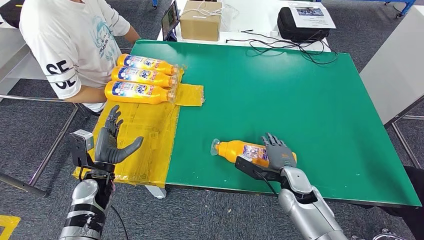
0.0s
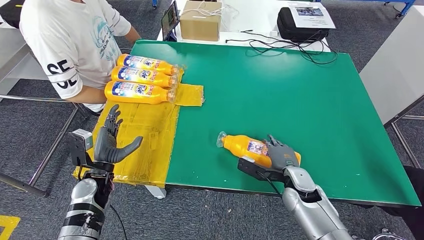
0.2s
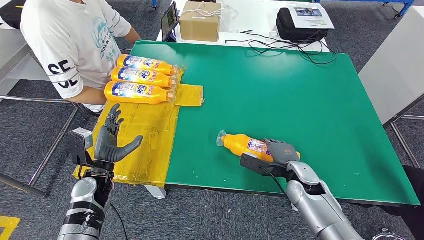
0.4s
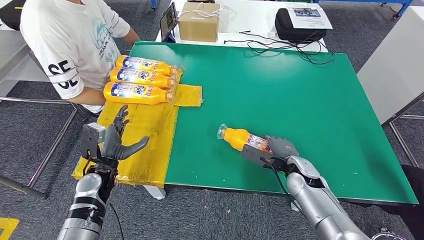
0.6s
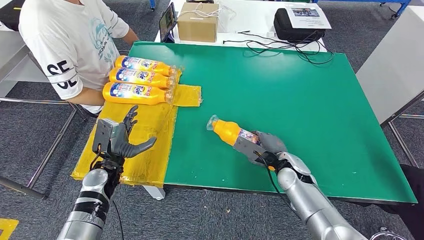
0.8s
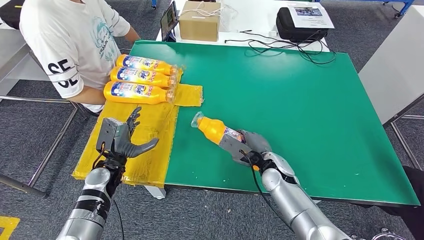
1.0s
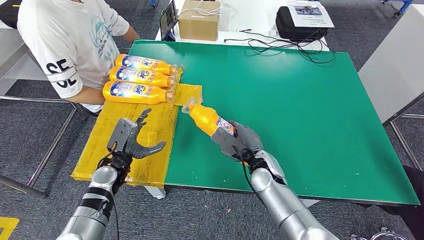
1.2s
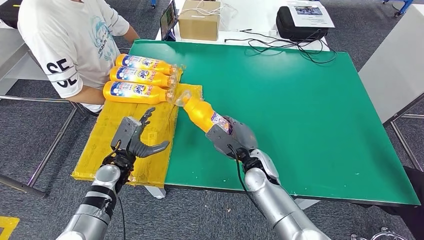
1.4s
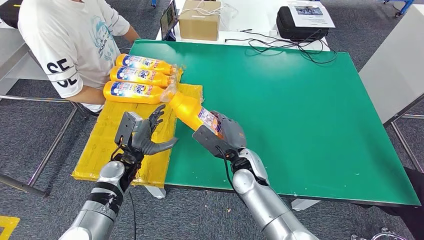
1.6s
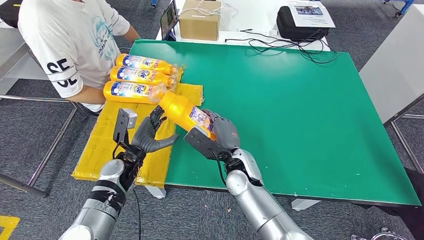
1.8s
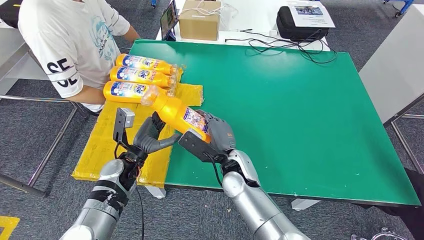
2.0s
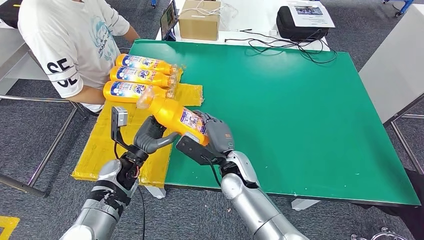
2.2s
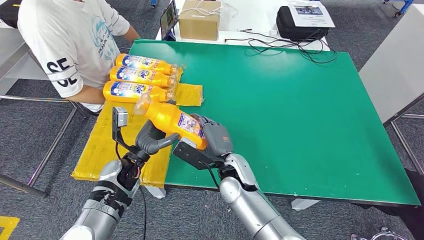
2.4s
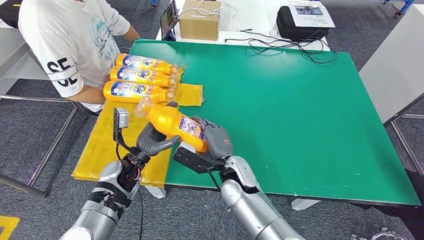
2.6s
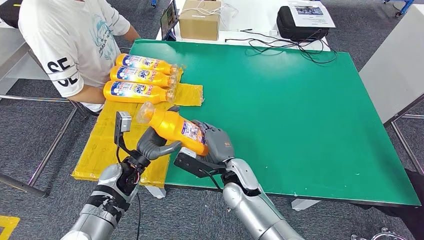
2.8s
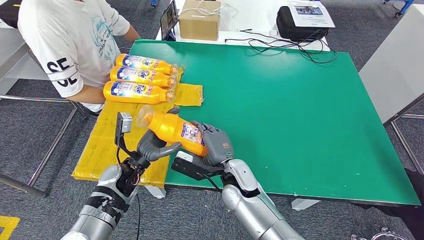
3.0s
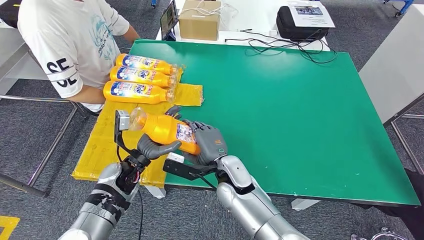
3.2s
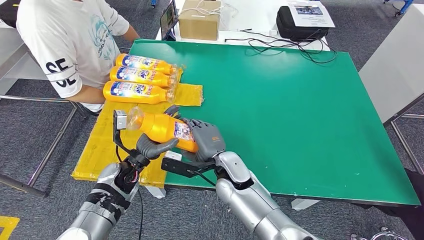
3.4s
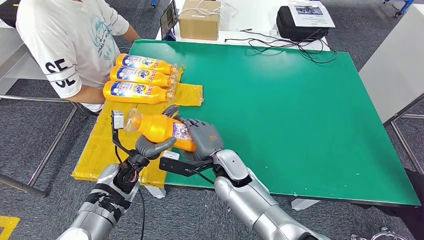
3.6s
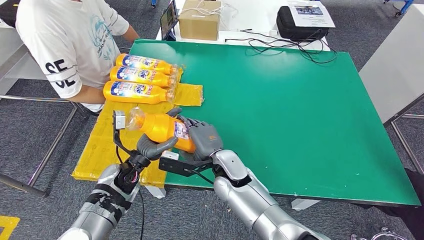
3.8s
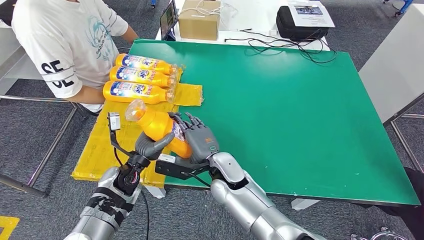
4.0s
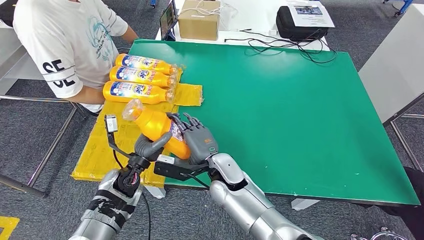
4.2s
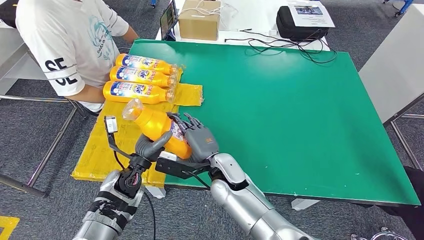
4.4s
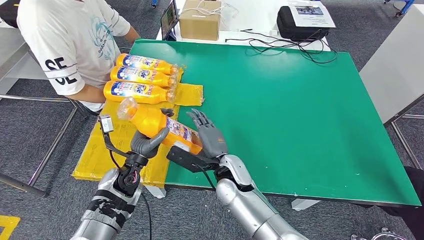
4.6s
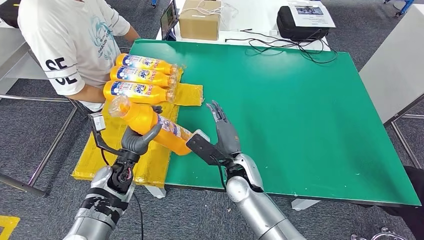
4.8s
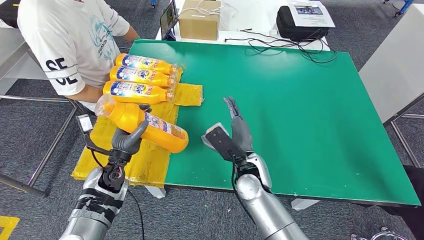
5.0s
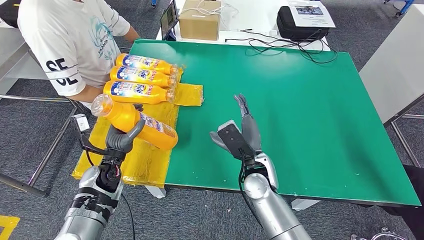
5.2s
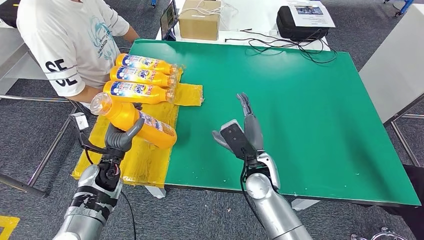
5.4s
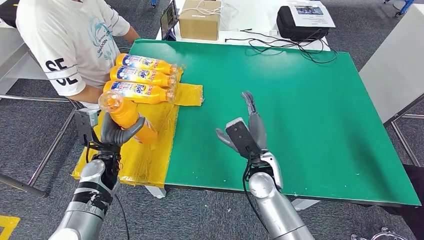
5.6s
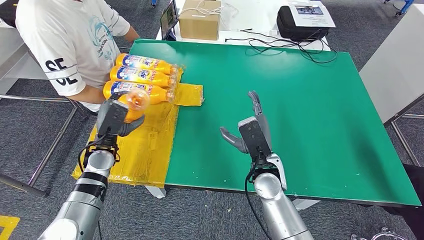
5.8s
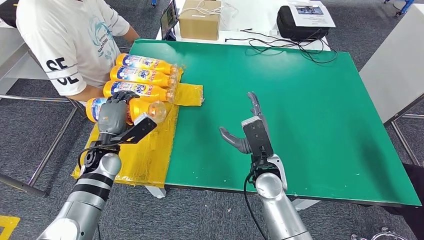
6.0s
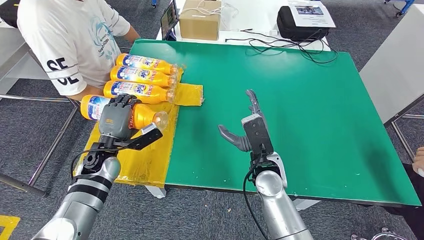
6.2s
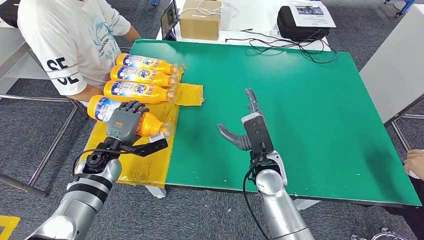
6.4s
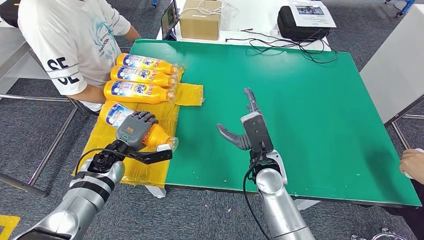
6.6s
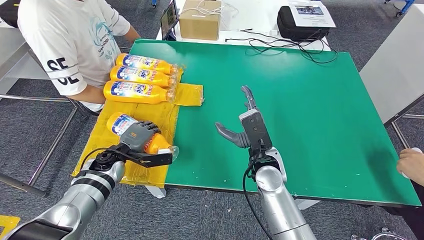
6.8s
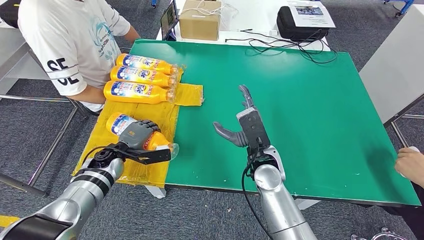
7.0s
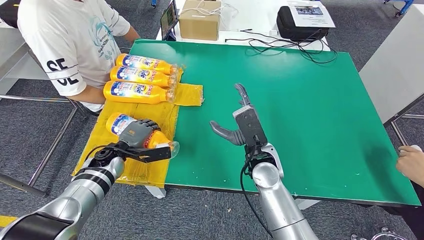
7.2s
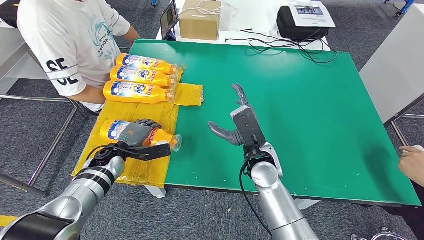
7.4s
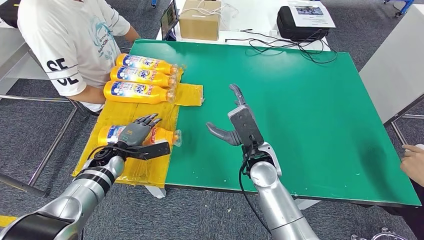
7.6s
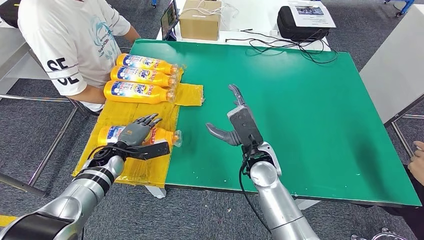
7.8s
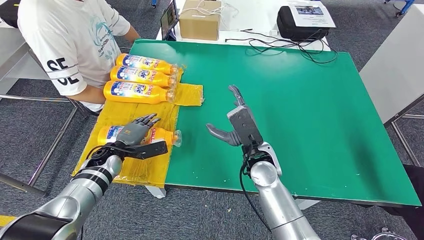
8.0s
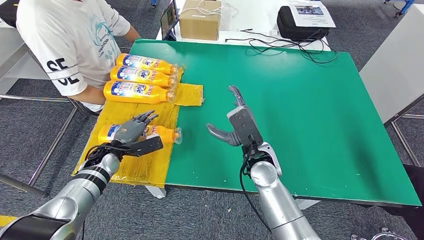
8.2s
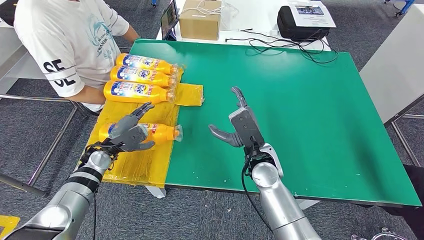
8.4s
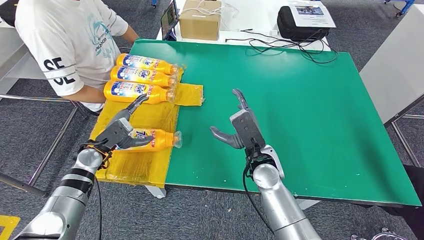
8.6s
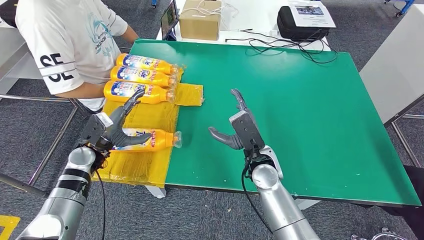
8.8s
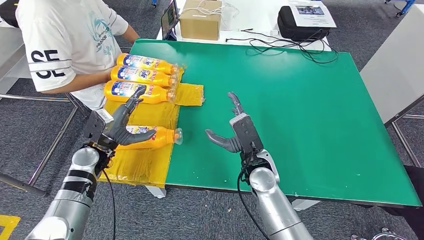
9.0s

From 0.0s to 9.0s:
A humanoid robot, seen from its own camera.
Step, from 2.0s to 9.0s: Flip the fast-moving consumer goods bottle to the front side.
From 4.4s to 6.0s: The left hand moves to the left, some 10 cm; the right hand travels to the right by approximately 10 cm.
From 6.0s to 7.6s: The left hand goes roughly 5 cm downward.
From 7.6s to 9.0s: The left hand travels upward by about 5 cm.
